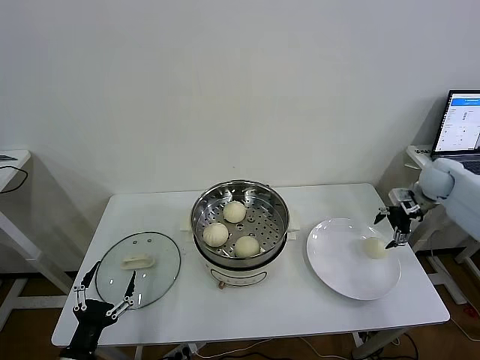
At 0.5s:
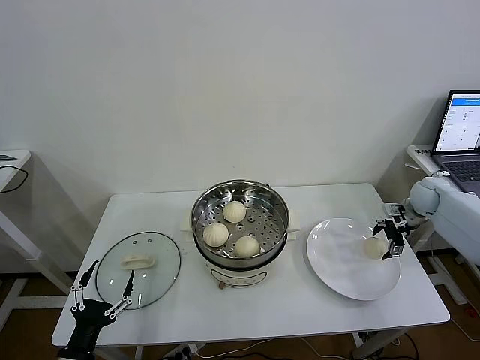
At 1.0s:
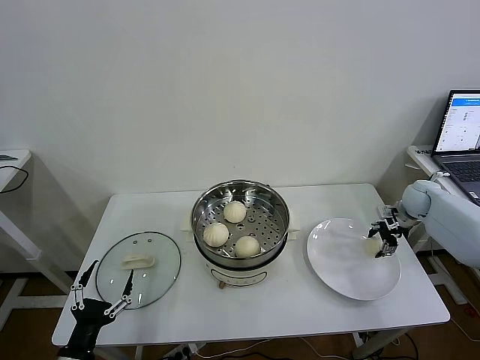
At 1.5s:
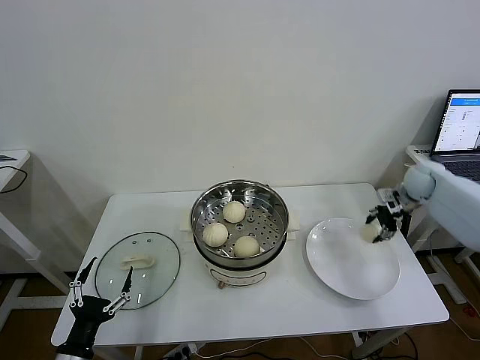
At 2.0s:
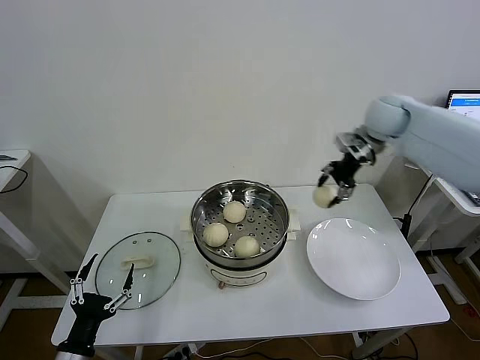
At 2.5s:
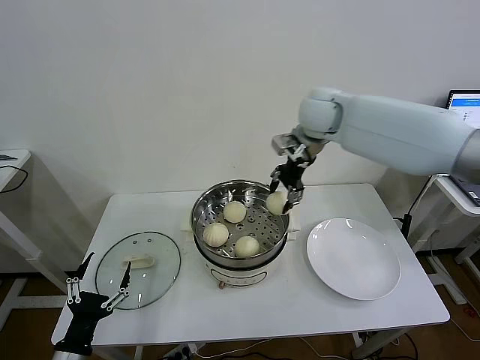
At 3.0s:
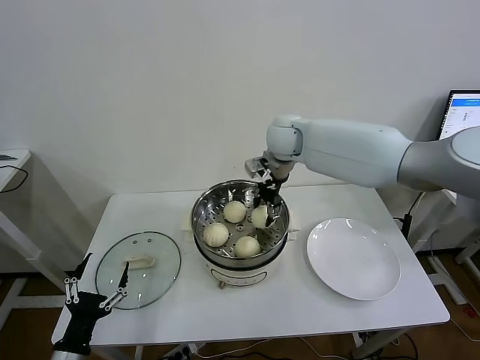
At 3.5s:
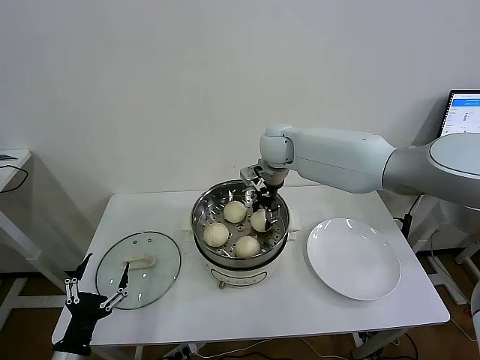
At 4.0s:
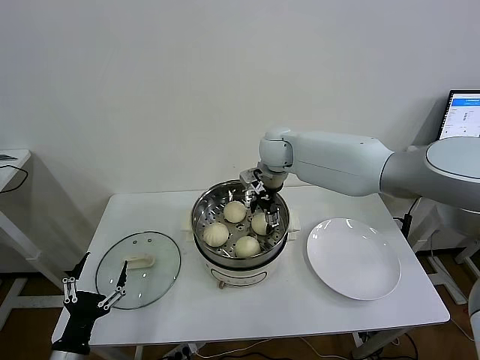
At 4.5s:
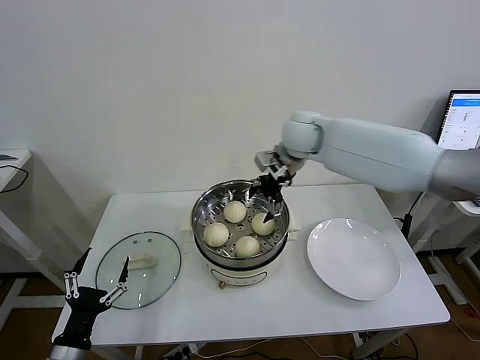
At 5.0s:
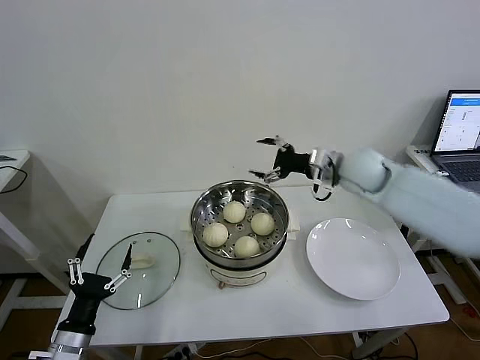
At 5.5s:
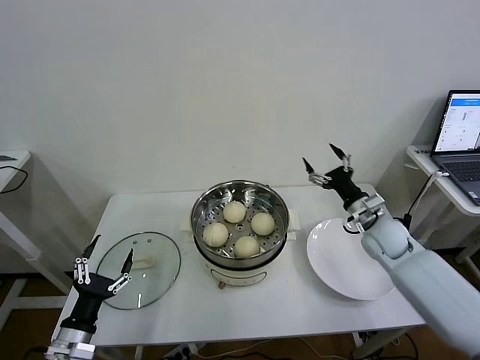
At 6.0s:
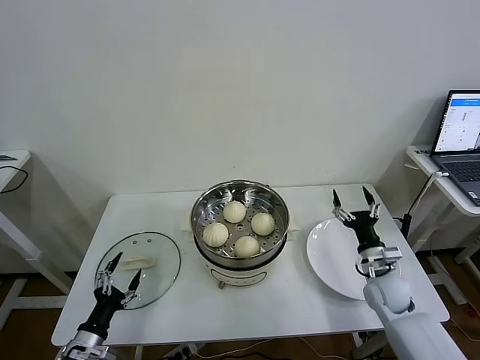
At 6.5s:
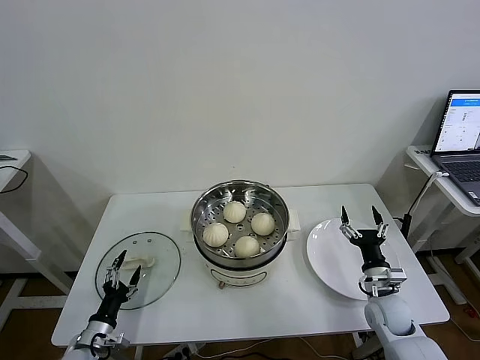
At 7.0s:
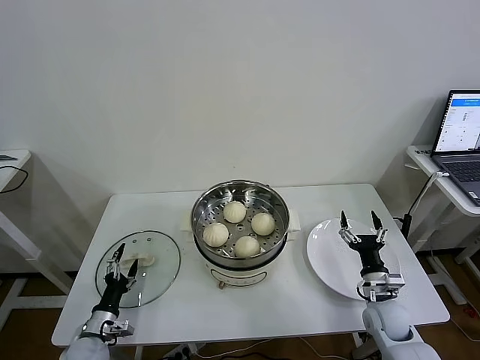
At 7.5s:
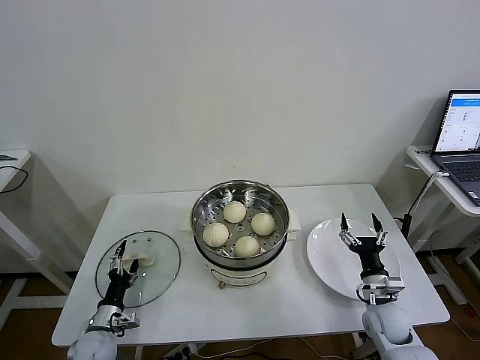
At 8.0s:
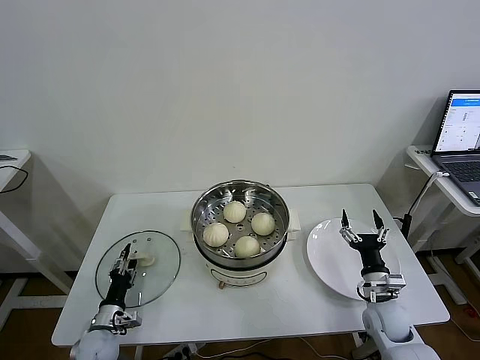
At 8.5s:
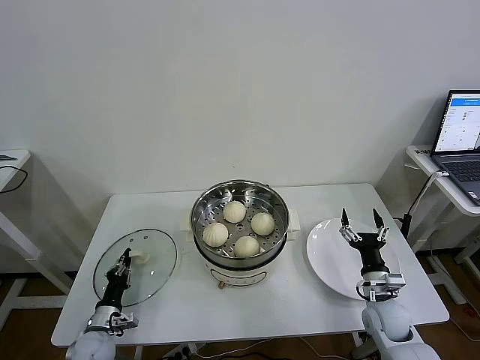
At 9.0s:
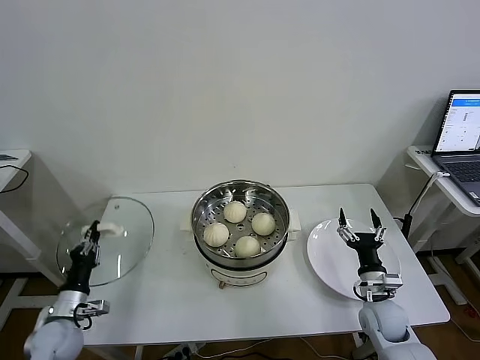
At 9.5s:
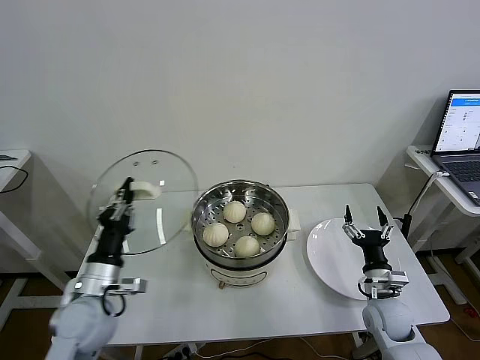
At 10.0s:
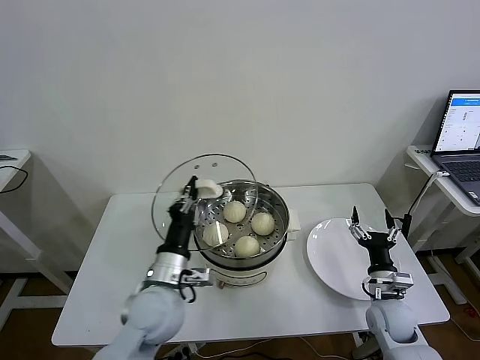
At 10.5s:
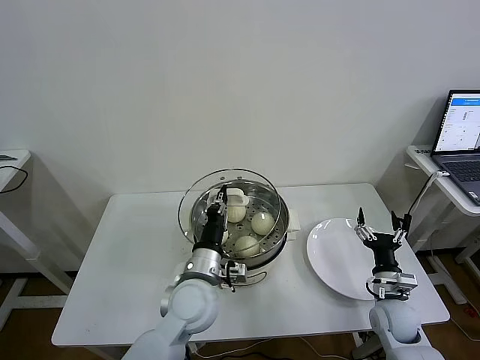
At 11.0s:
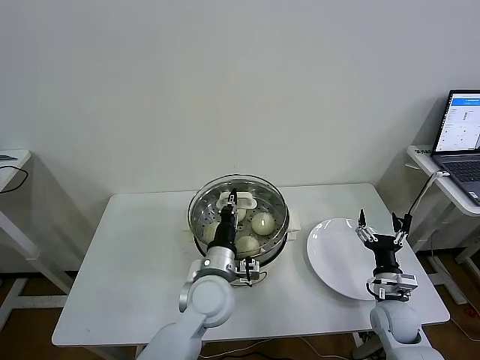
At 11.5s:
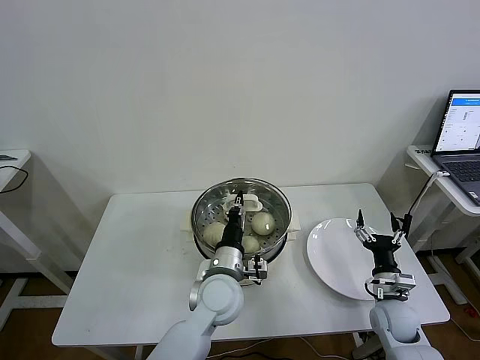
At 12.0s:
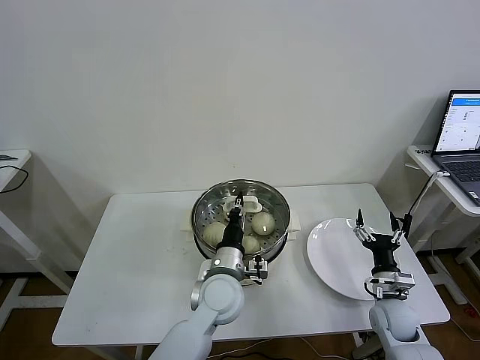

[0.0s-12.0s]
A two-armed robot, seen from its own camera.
Task of the whole recording: take steamed baozi put them in steamer then cover it.
Step, 1.5s to 4.0s: Place the baozi on the steamer with right gripper.
Step, 4.5s to 8.0s: Grasp the pot lid with left gripper.
0.0s to 2.0s: The right gripper shifts some 25 cm to the left and upward, and closes up.
2.0s to 4.0s: The right gripper is displaced to the left and downward by approximately 25 cm, and opens.
4.0s to 6.0s: The left gripper heads downward and forward, covering approximately 10 cm, while the right gripper heads to the right, downward and backward, covering about 40 cm.
6.0s to 8.0s: The left gripper is displaced forward and downward by about 10 cm, and closes its fingers. Meanwhile the right gripper goes approximately 5 cm backward.
8.0s to 10.0s: The left gripper is displaced upward and to the right by some 30 cm, and closes its fingers.
10.0s to 12.0s: The left gripper goes approximately 10 cm to the right.

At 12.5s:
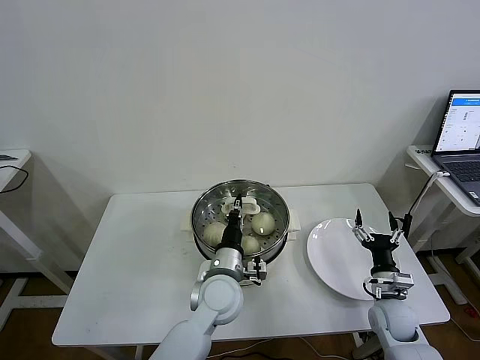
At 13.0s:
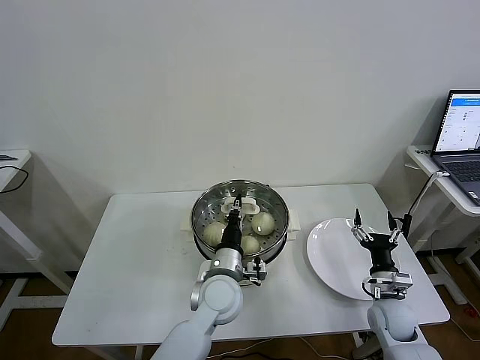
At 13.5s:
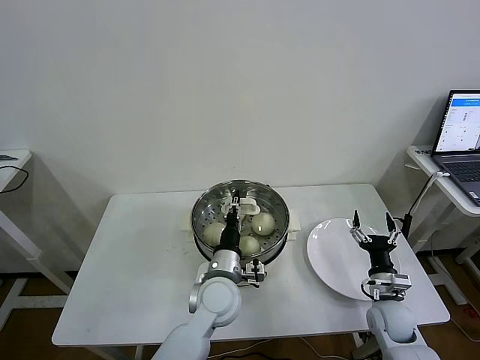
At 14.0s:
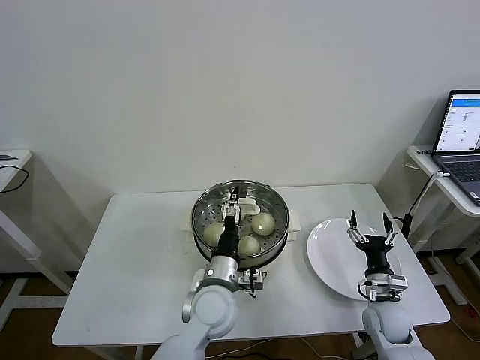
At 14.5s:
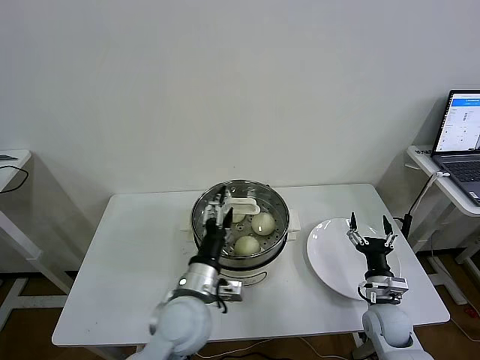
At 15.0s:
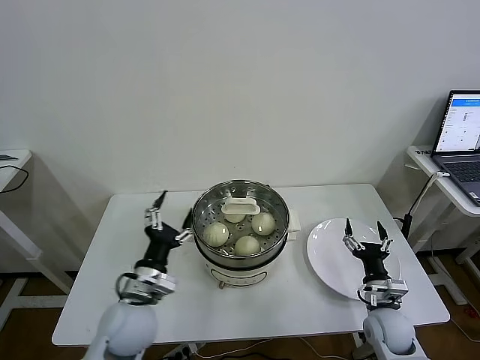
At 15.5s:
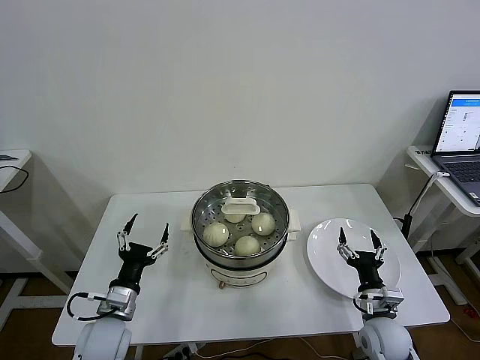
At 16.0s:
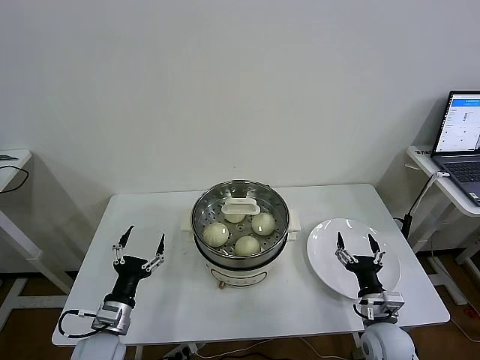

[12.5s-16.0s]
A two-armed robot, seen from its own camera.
Task of the whole recording: take steamed baozi put them in steamer then cover it.
12.5s to 14.5s: The left gripper heads backward, covering roughly 5 cm, and opens.
14.5s to 16.0s: The left gripper heads to the left and downward, covering approximately 20 cm; the right gripper changes place by some 5 cm.
